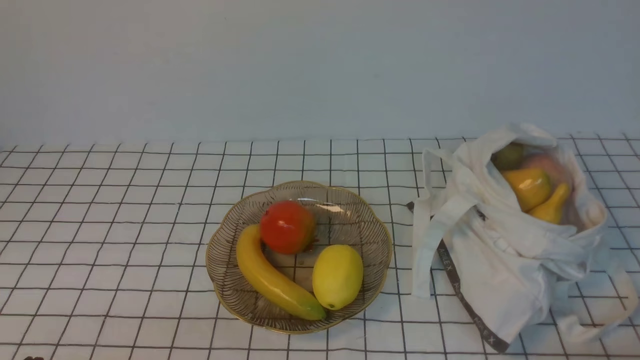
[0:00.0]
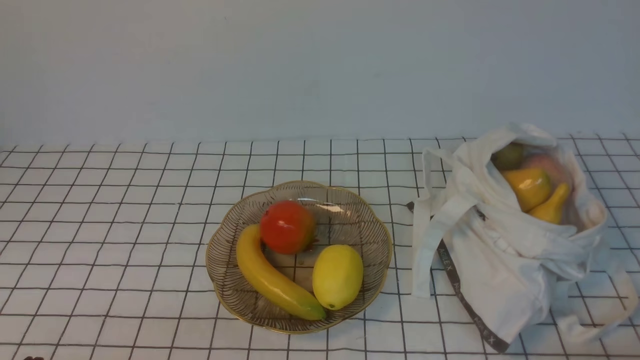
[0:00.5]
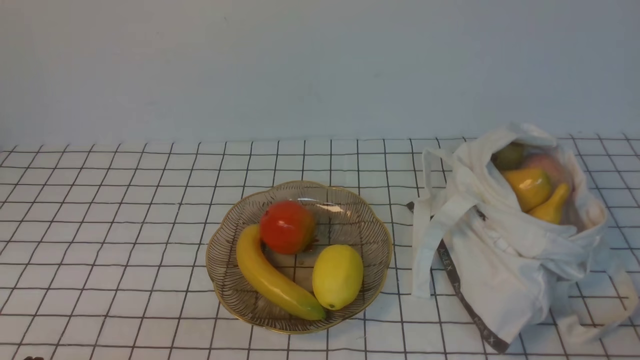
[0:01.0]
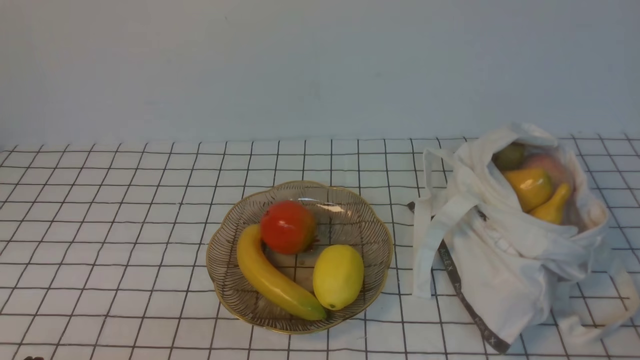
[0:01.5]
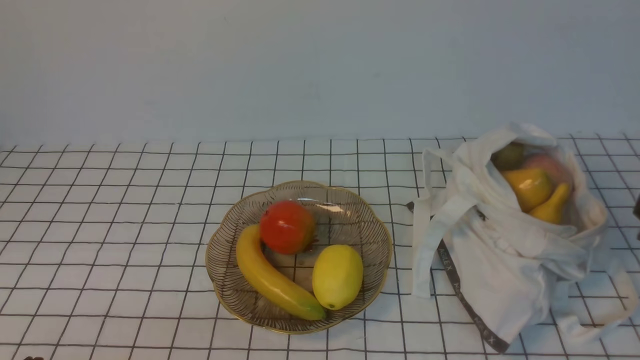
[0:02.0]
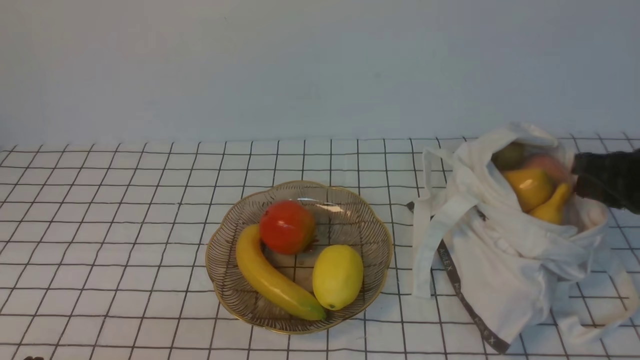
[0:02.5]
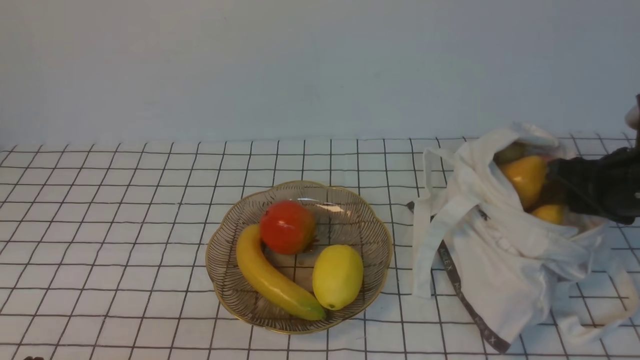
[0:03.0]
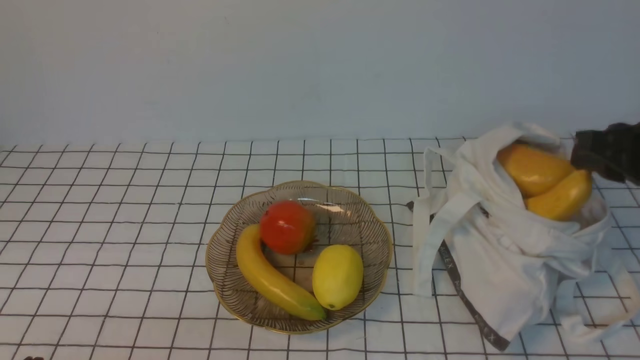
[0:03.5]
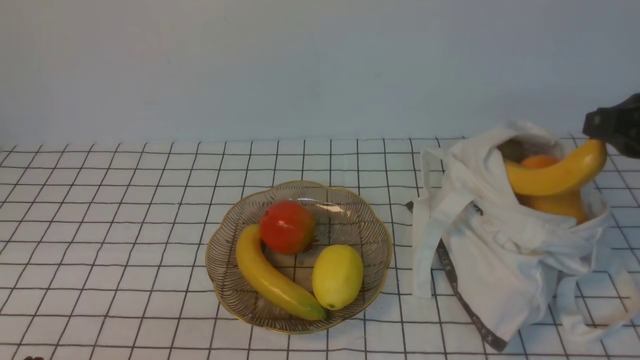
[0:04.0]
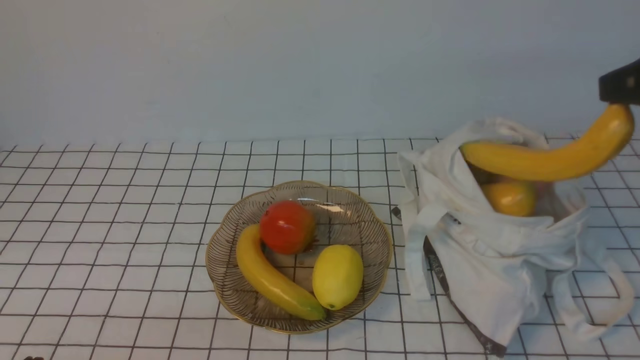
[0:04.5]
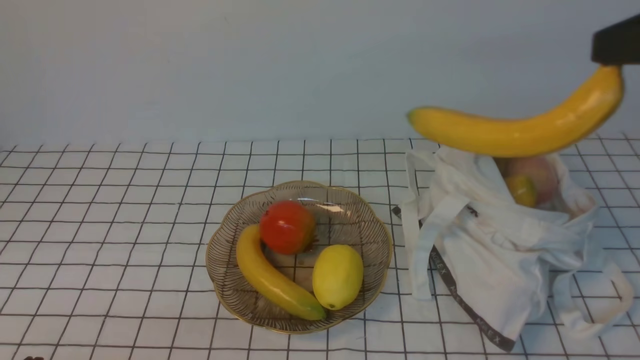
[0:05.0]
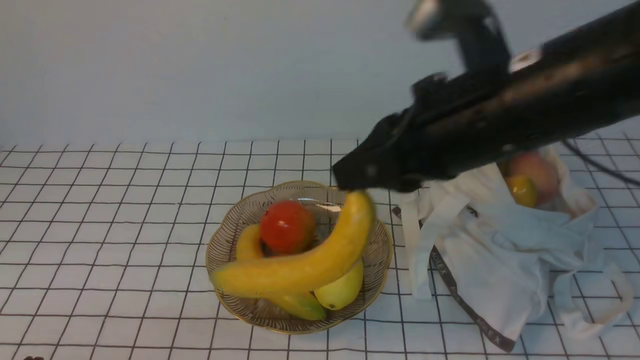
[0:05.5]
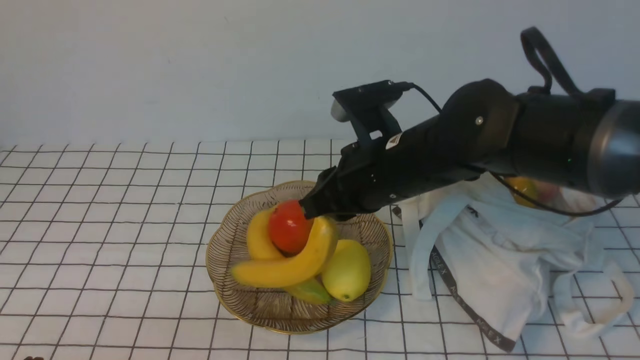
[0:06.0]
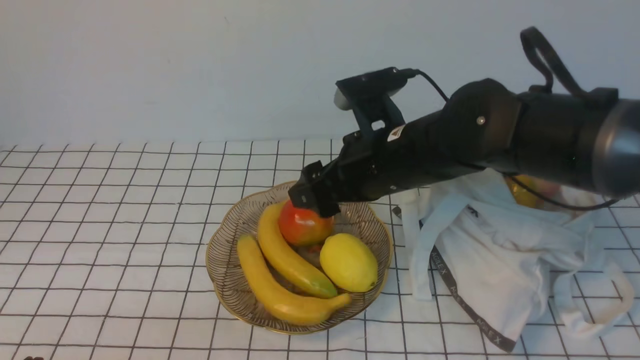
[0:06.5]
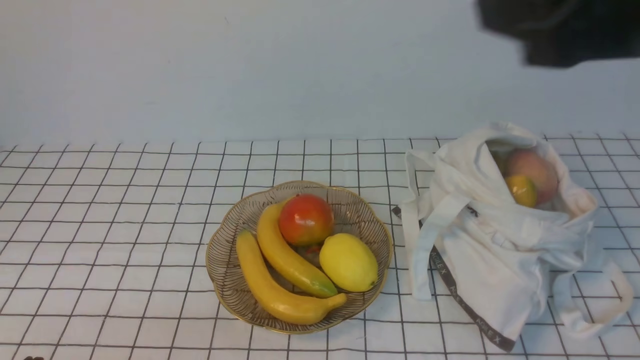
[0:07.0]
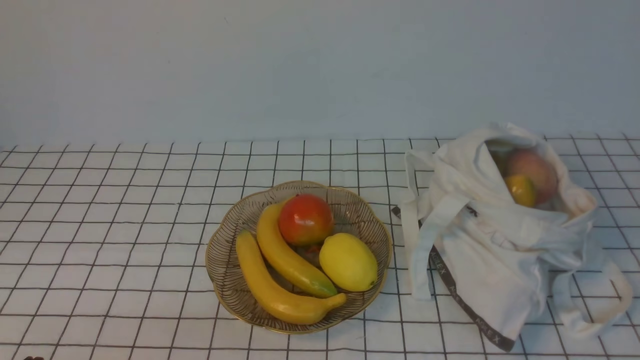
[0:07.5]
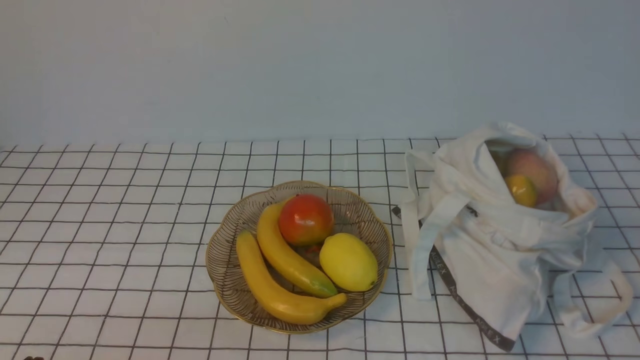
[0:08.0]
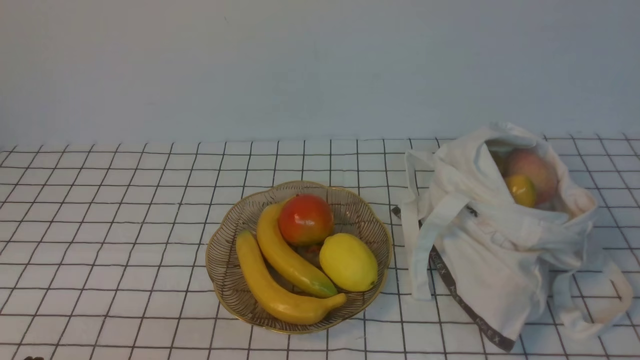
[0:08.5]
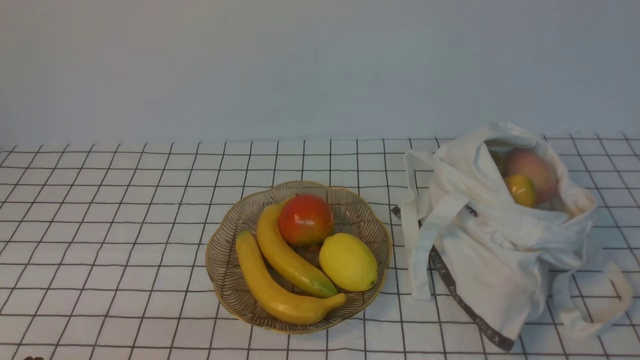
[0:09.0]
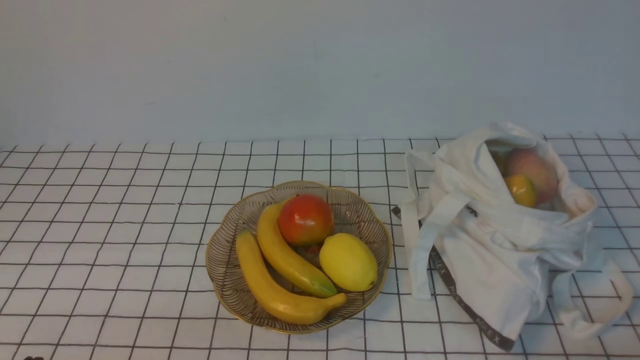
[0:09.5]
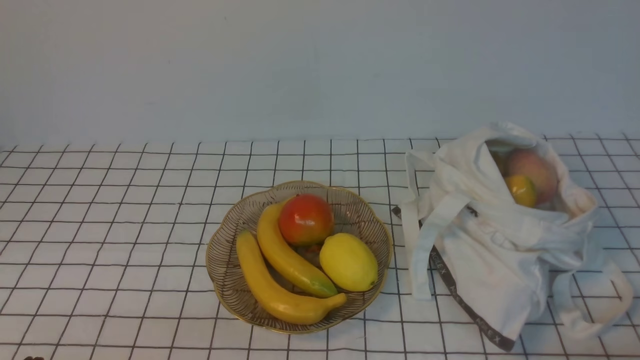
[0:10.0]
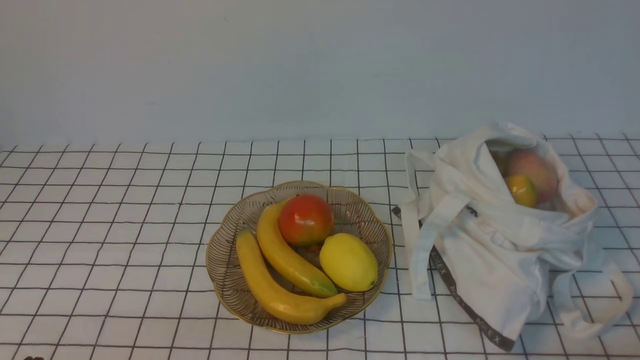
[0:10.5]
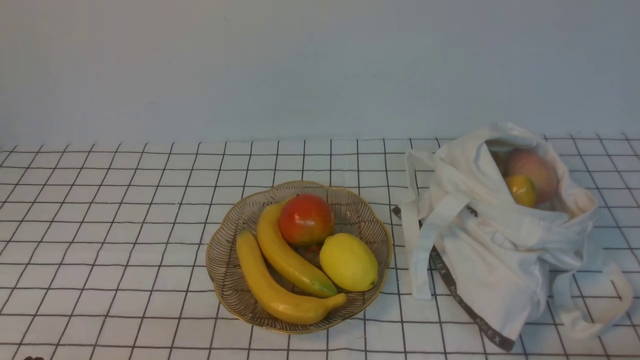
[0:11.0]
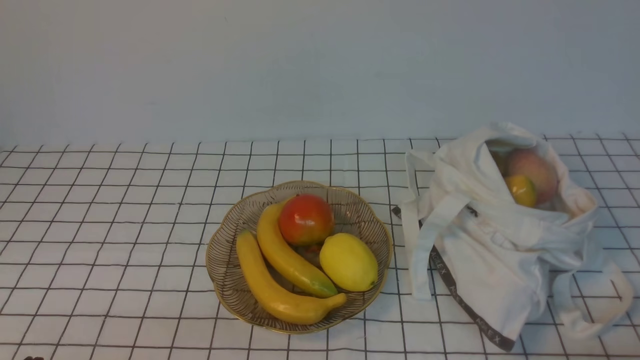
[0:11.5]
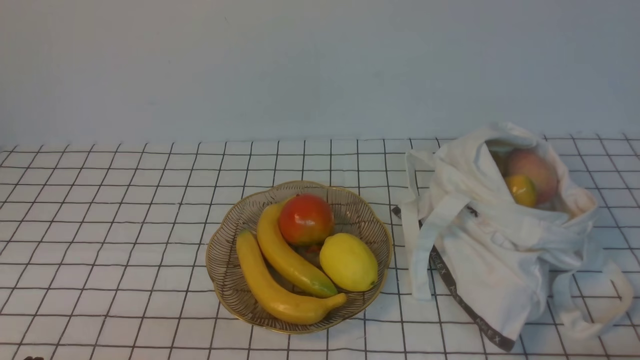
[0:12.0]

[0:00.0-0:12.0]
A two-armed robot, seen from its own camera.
Step, 0:00.0 to 0:03.0: use the right arm to grab a banana from the bag.
Step, 0:03.5 to 0:06.0: use the right arm to put the banana into the empty plate on the right.
0:02.0 to 0:04.0: The right gripper is displaced forward by roughly 10 cm.
0:04.0 to 0:06.0: The right gripper heads to the left, covering about 25 cm.
0:06.0 to 0:08.0: The right gripper moves backward and to the right, some 40 cm, and opens and closes again.
0:10.0 to 0:12.0: Neither gripper changes place.
